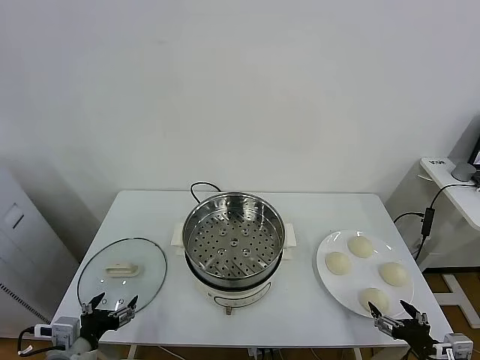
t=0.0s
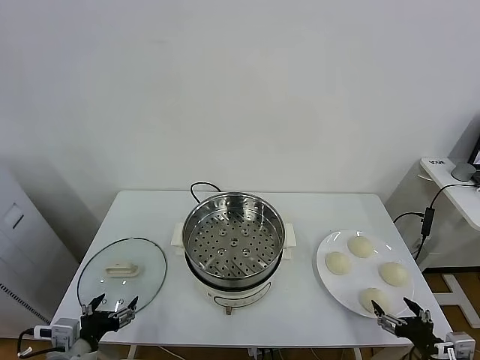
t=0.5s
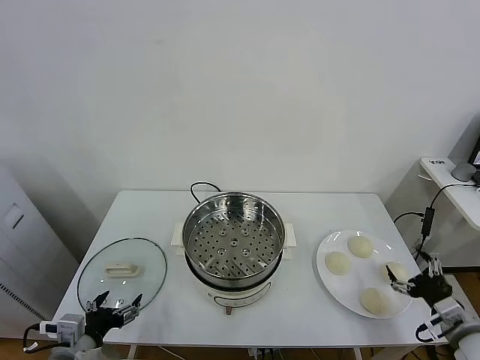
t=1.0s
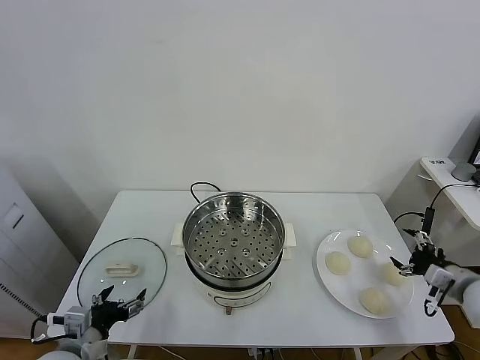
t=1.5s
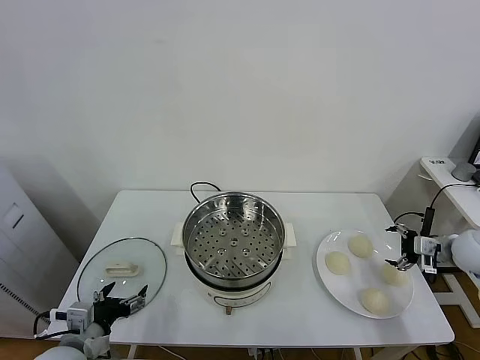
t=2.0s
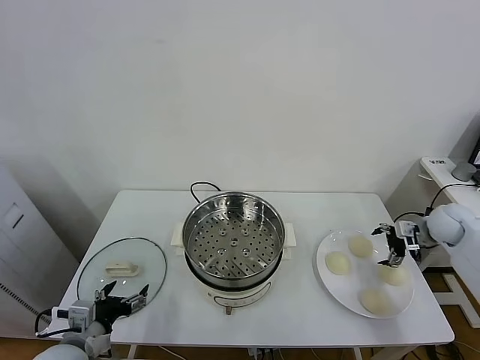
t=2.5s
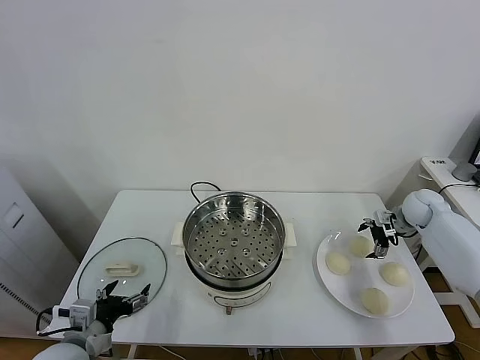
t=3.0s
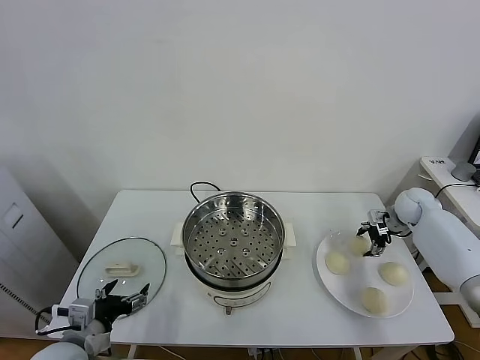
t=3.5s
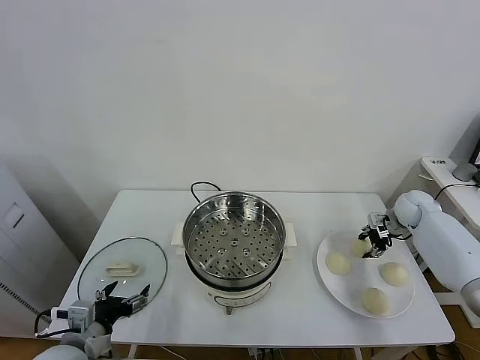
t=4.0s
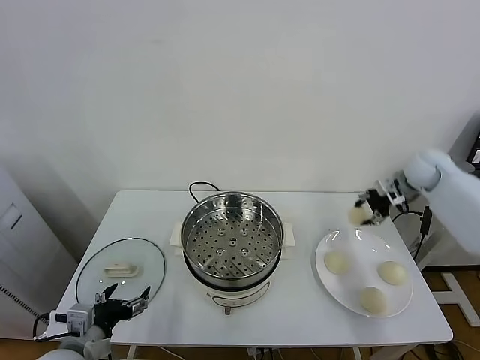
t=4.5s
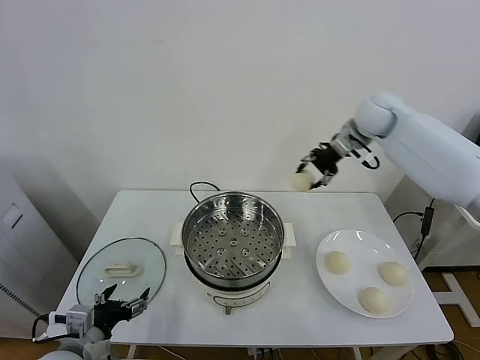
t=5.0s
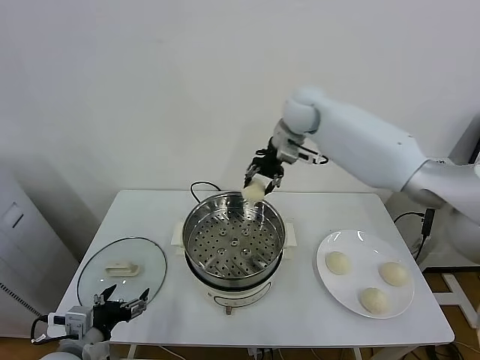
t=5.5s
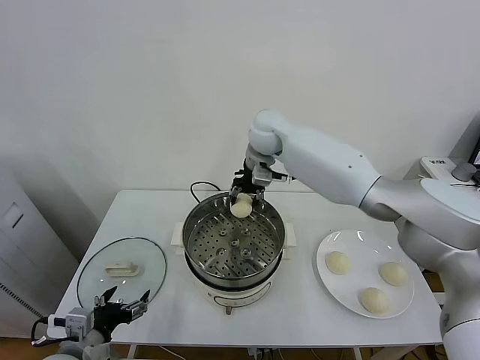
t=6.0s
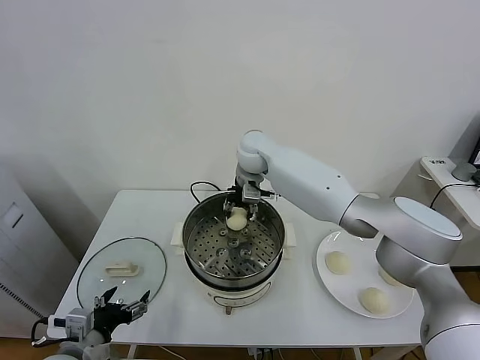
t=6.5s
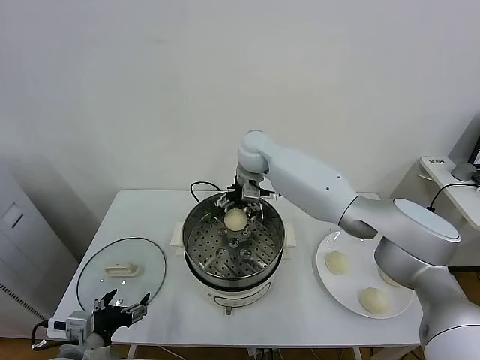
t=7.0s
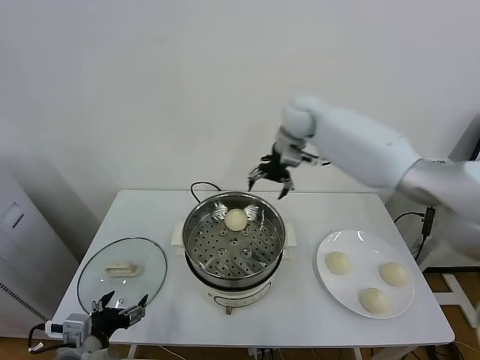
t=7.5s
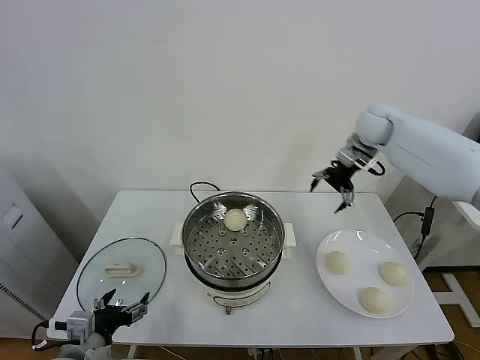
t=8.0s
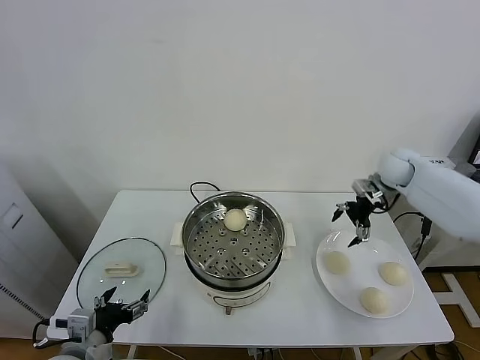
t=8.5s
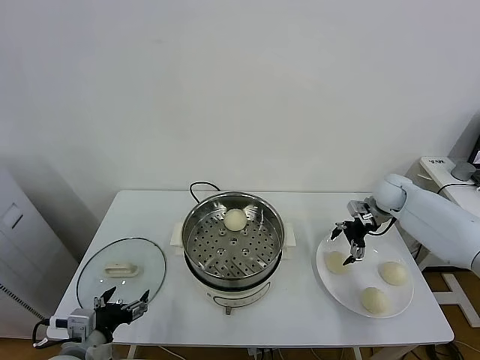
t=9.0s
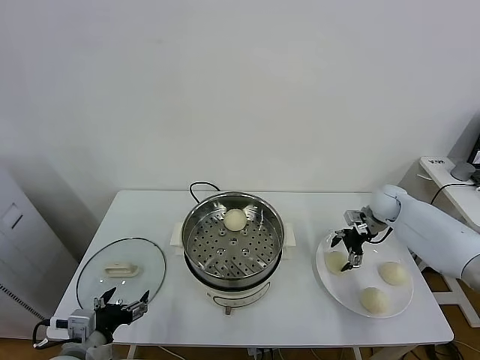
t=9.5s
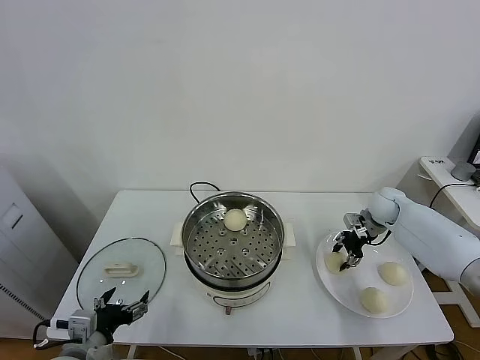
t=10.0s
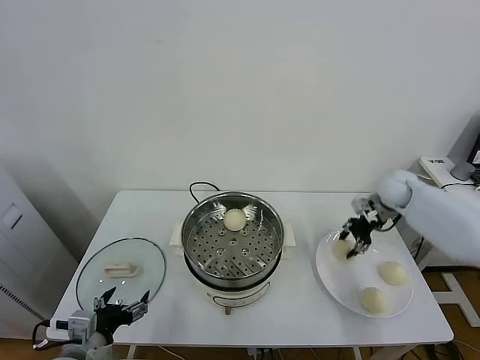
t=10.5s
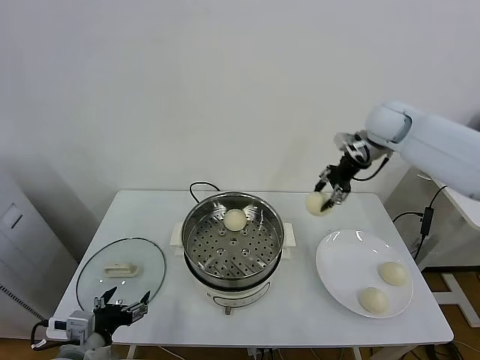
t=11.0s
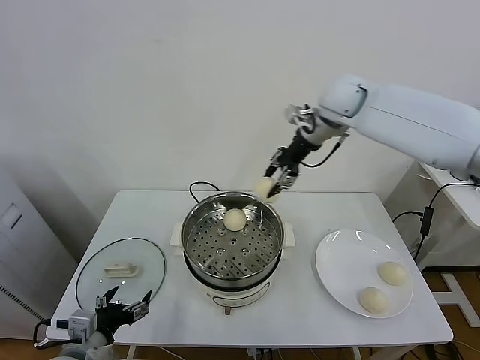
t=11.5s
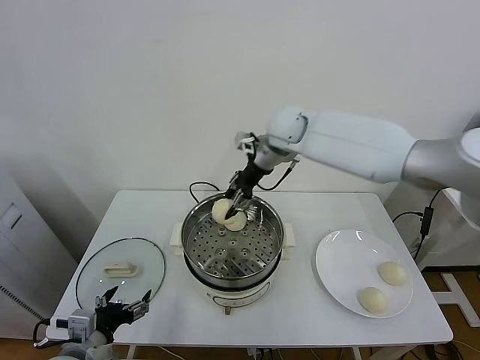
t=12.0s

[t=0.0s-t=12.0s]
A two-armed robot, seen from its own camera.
Task of the whole recording: take steamed baozi put them in steamer.
Step, t=0.0s to t=3.5s: Grasp the baozi in the plate with right gripper.
Step, t=4.0s to t=7.0s: Place the baozi on the steamer with right gripper.
Step, t=7.5s to t=9.5s: Grasp the baozi in the plate with right gripper.
t=2.0s to t=4.0s: The right gripper goes roughly 15 cm forward, and closes.
t=4.0s to t=6.0s: The right gripper heads to the left and upward, covering some 50 cm.
t=6.0s to t=8.0s: The right gripper goes about 30 cm to the right, and opens its fingers.
t=8.0s to t=10.0s: The right gripper moves downward, approximately 20 cm, and closes its fingers.
t=10.0s to t=12.0s: The right gripper shifts approximately 35 cm to the left and upward.

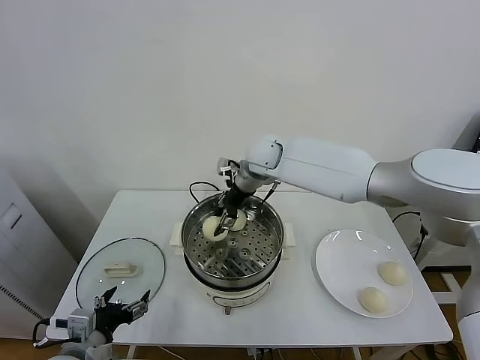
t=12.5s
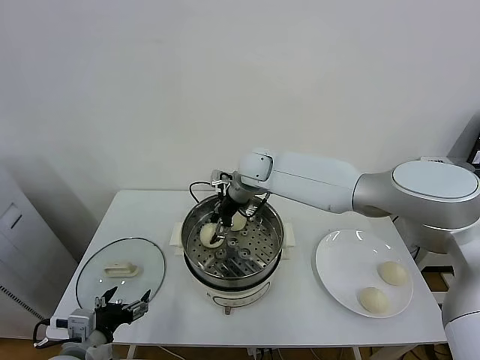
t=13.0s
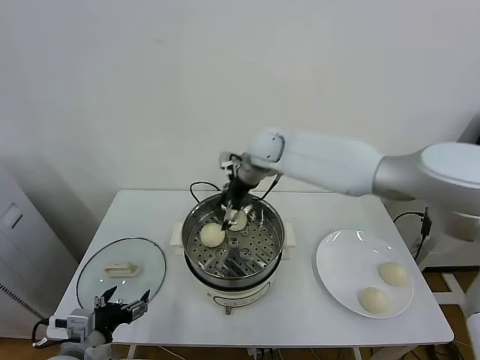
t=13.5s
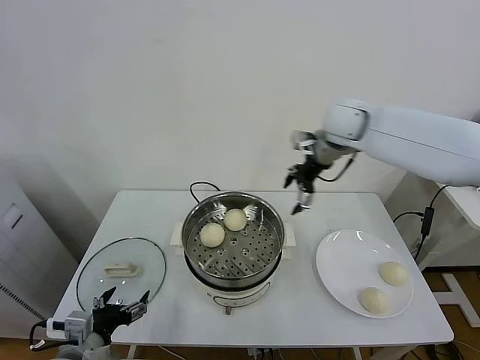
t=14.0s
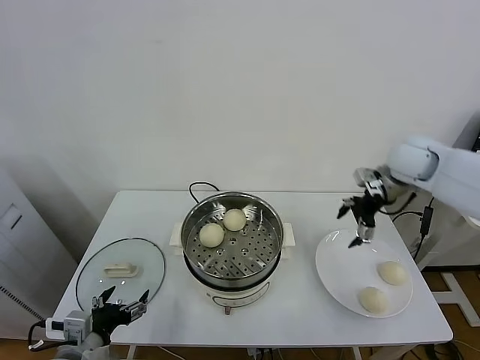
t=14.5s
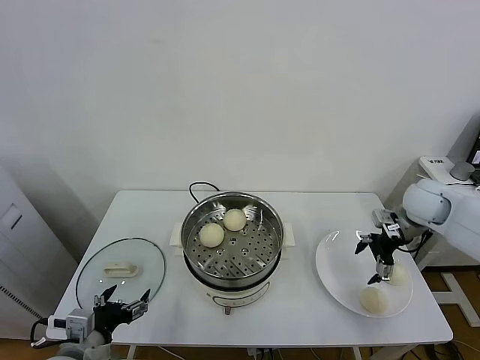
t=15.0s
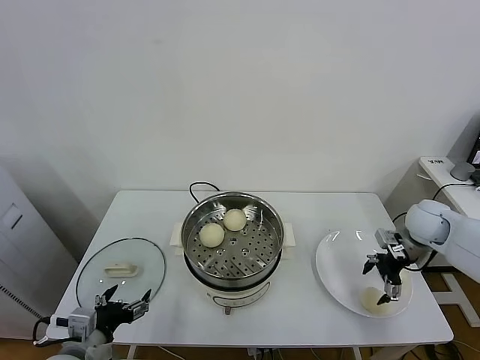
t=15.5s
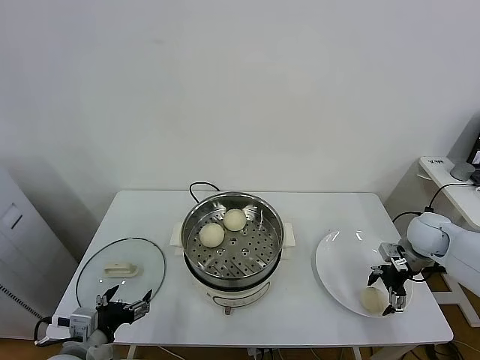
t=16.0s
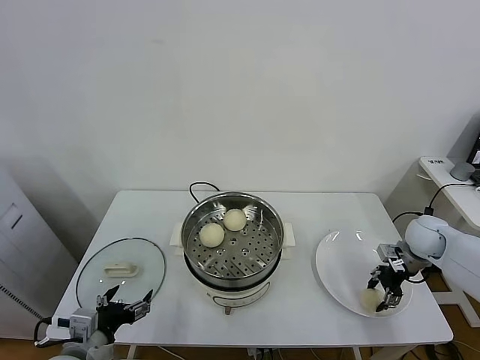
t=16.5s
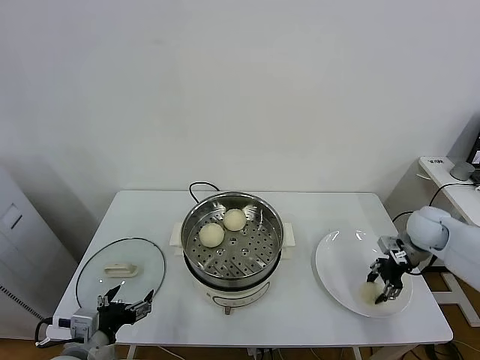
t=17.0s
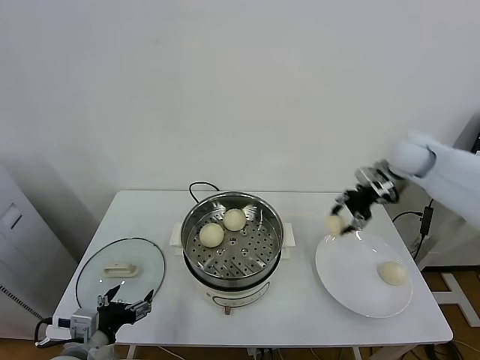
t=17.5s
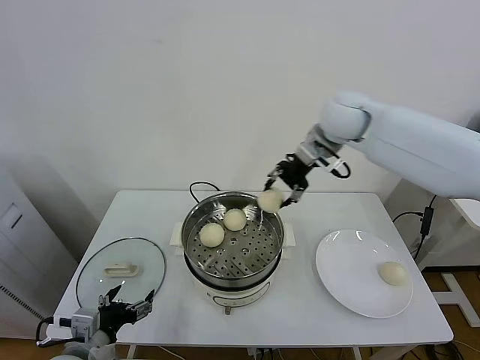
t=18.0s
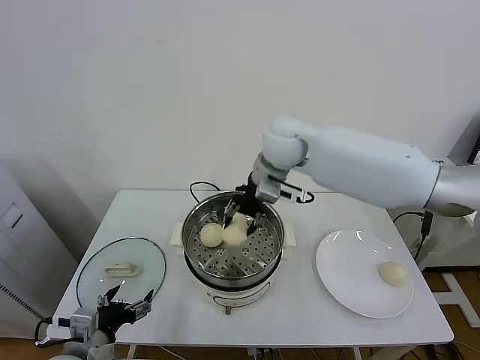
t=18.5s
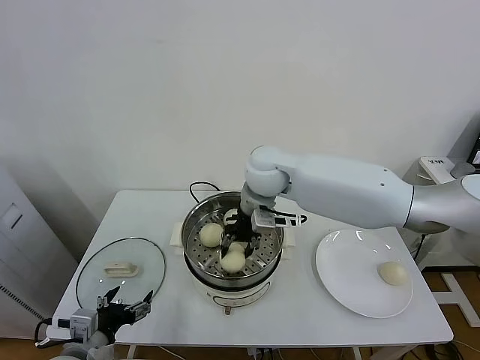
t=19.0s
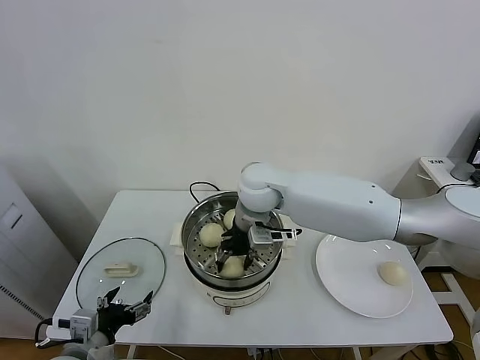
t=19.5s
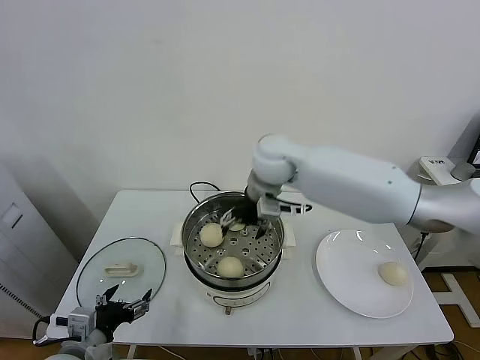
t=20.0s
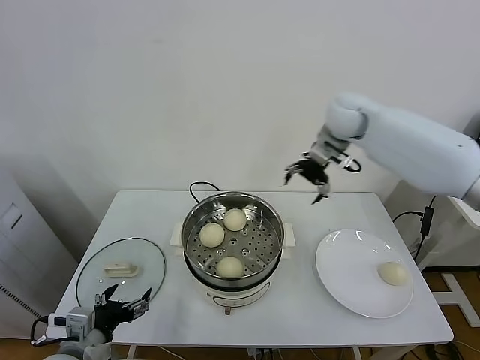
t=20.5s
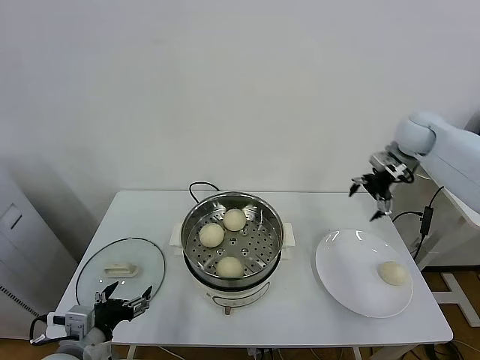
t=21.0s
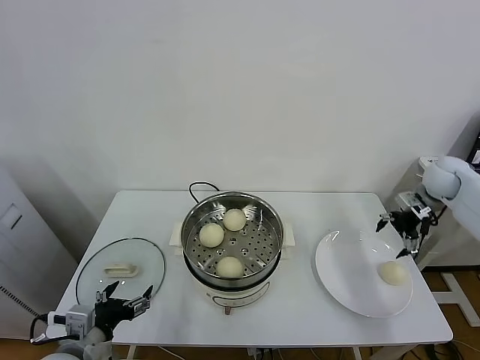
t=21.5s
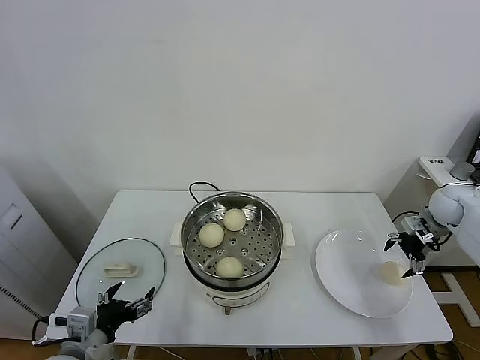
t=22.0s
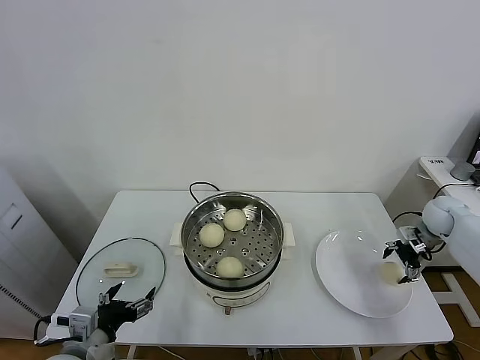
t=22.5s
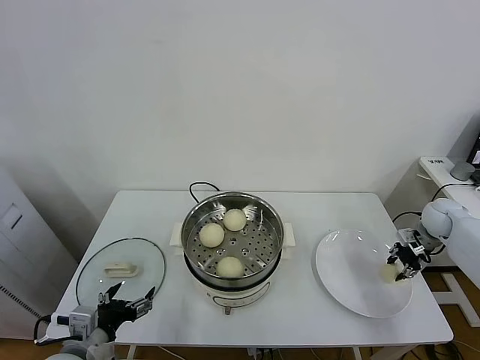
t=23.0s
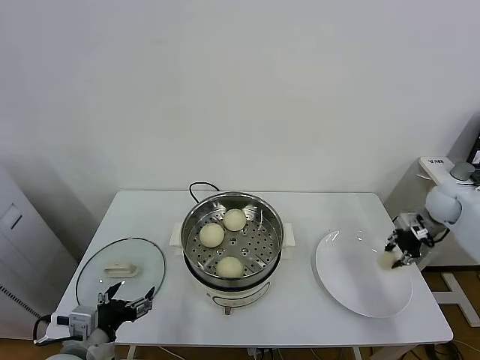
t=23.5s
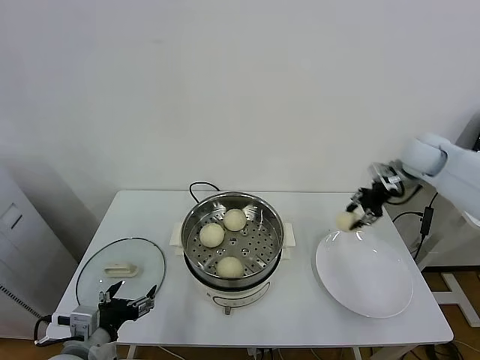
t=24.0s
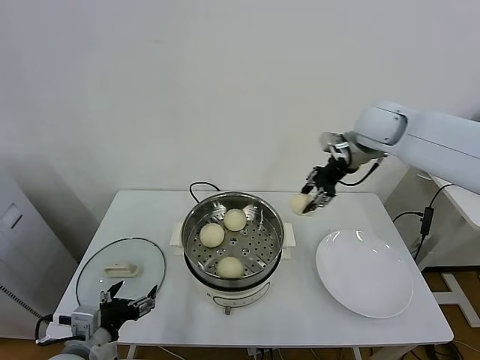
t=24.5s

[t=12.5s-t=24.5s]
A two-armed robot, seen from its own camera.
Task of the whole recording: take steamed baozi put them in steamer.
Step, t=13.5s to t=16.5s: Grasp the baozi in the plate with right gripper.
Step, t=17.0s to t=19.5s: Place the baozi on the steamer with right gripper.
Step, t=20.0s to t=22.5s: Grasp the baozi in the plate with right gripper.
t=12.5s to t=14.5s: The right gripper shifts approximately 30 cm to the right, and opens.
t=14.5s to t=16.5s: The right gripper heads downward and to the right, covering some 20 cm, and closes up.
t=16.5s to t=18.5s: The right gripper travels to the left and upward by roughly 40 cm.
t=18.5s to t=20.5s: The right gripper goes about 20 cm to the right and forward, and opens.
t=20.5s to t=22.5s: The right gripper goes roughly 35 cm to the right and downward.
t=22.5s to t=24.5s: The right gripper travels to the left and upward by approximately 35 cm, and closes.

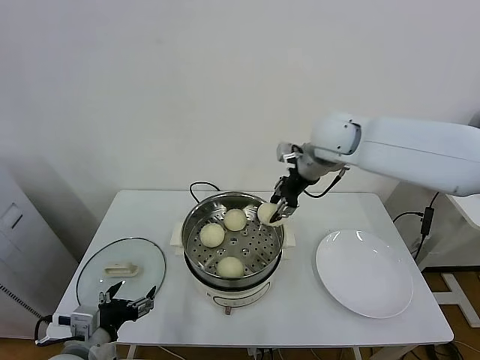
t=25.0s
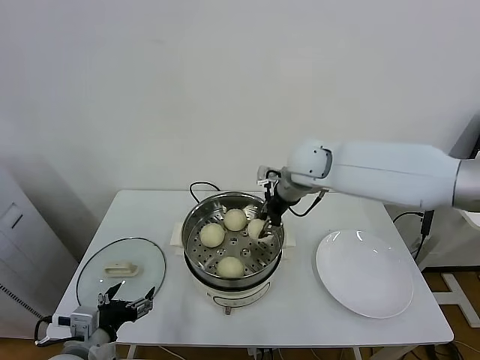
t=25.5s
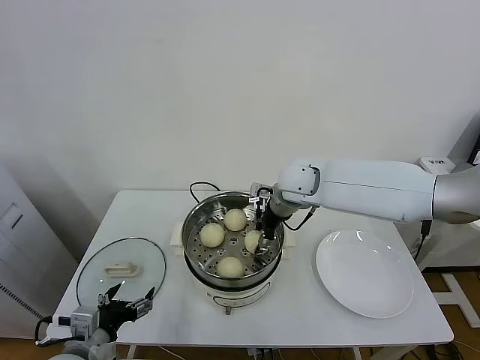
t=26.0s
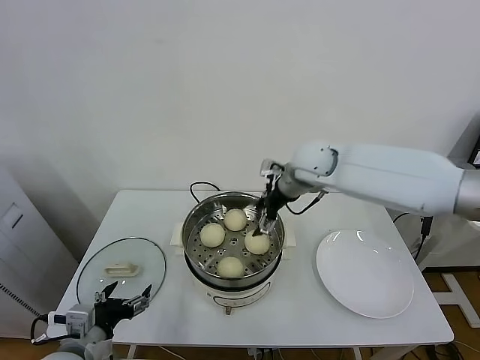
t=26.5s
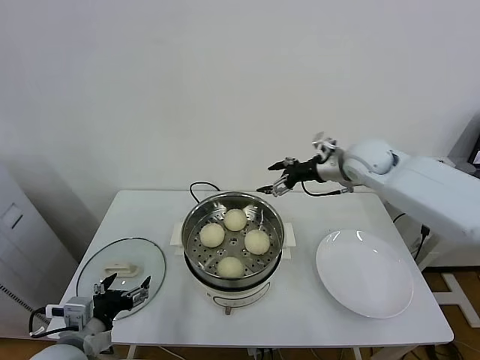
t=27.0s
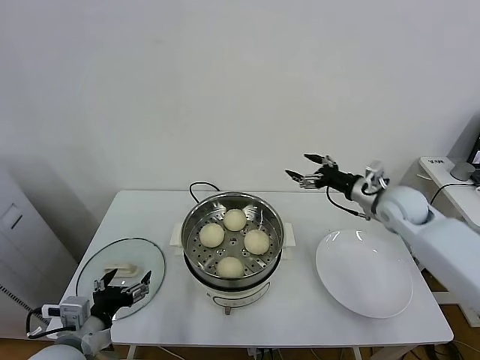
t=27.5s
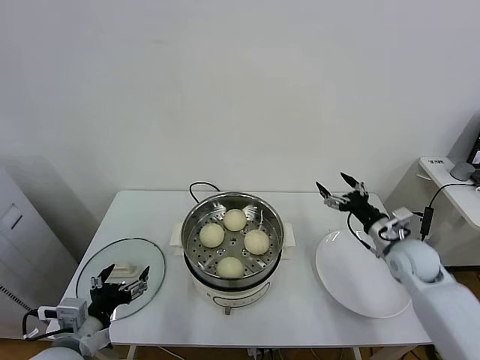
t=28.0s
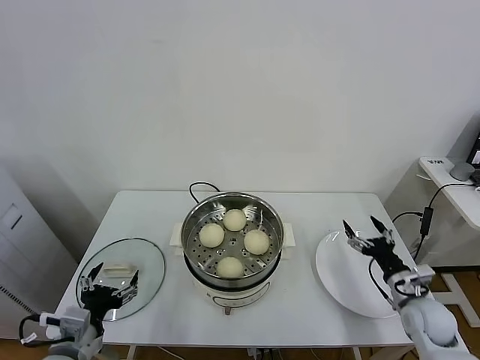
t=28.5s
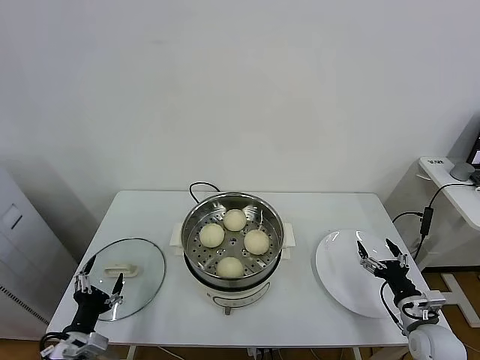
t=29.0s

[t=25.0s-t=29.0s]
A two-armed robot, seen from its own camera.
Task of the whole recording: take steamed baozi put them in steamer.
t=25.0s to t=27.0s: The right gripper travels to the right and downward by roughly 10 cm, and opens.
t=27.0s to t=29.0s: The left gripper moves downward, approximately 10 cm, while the right gripper goes some 40 cm downward, backward and to the right.
